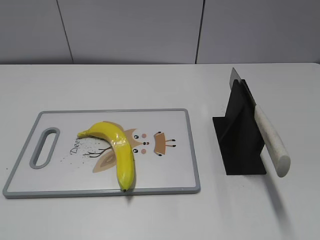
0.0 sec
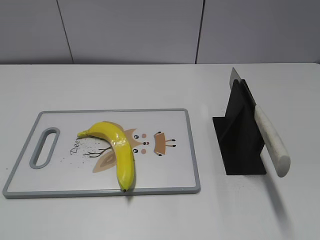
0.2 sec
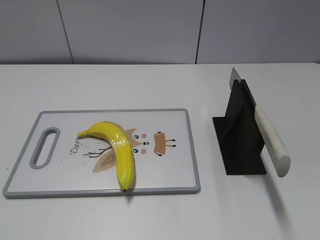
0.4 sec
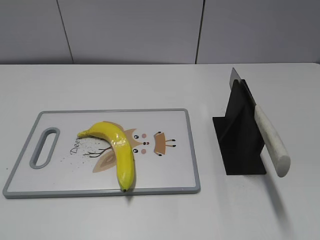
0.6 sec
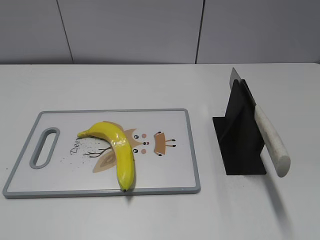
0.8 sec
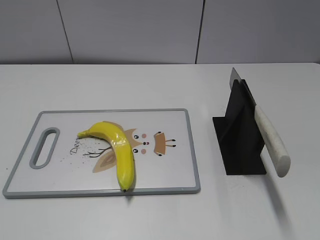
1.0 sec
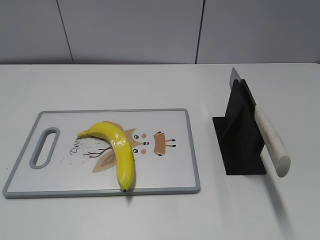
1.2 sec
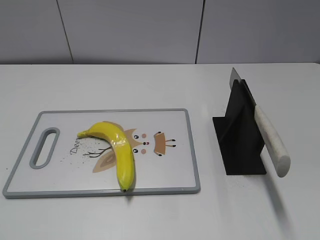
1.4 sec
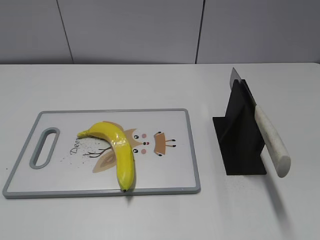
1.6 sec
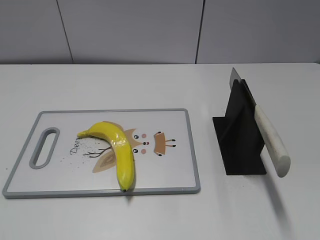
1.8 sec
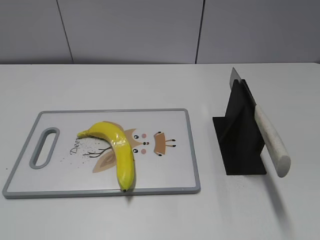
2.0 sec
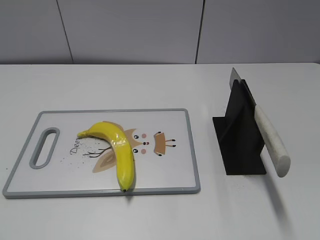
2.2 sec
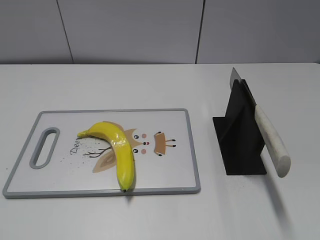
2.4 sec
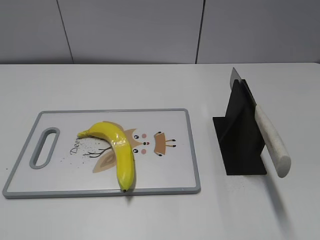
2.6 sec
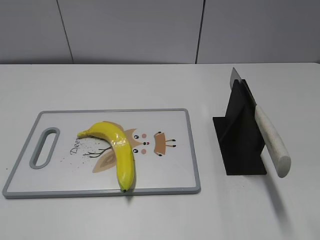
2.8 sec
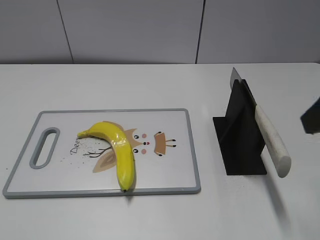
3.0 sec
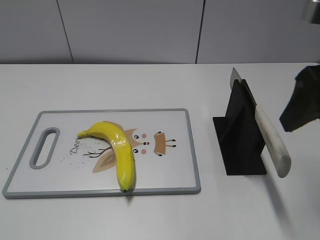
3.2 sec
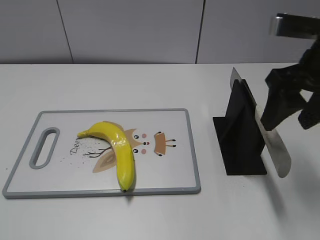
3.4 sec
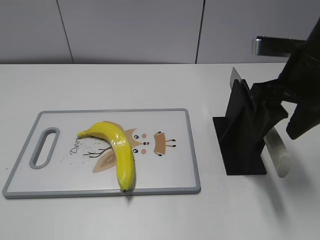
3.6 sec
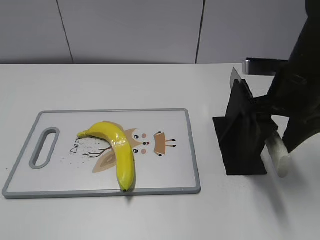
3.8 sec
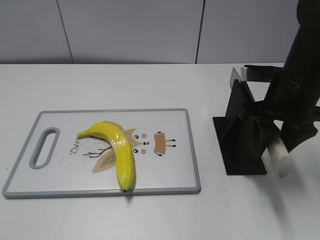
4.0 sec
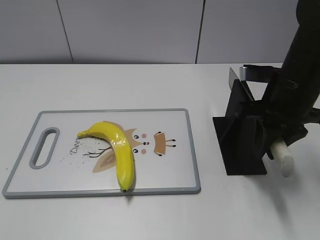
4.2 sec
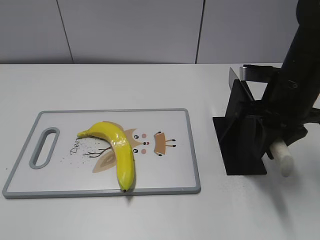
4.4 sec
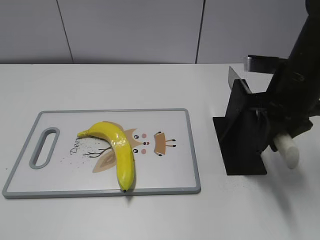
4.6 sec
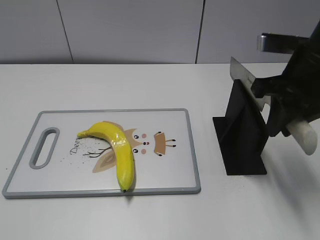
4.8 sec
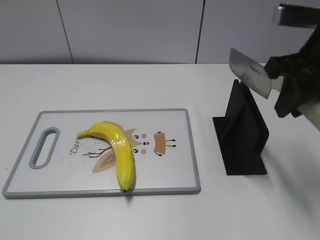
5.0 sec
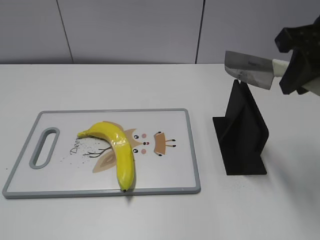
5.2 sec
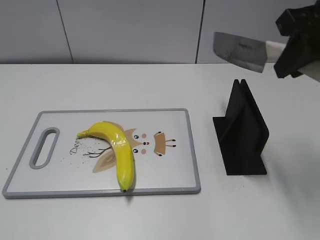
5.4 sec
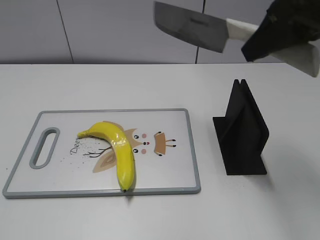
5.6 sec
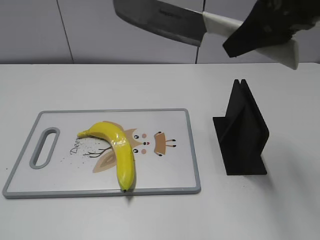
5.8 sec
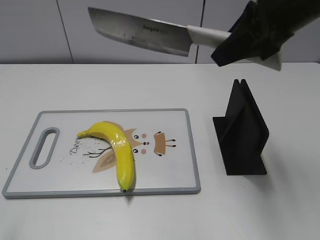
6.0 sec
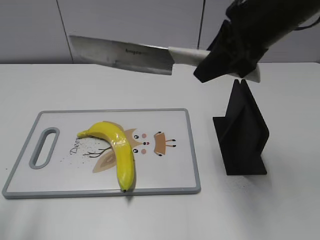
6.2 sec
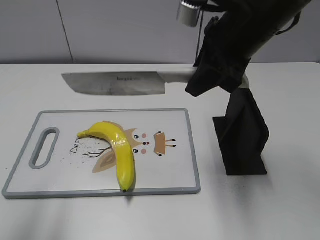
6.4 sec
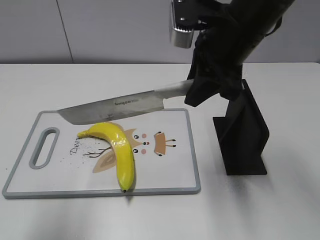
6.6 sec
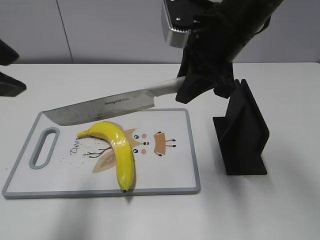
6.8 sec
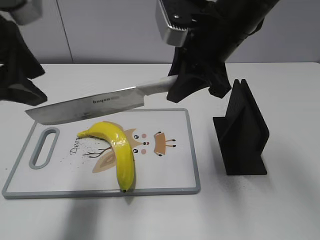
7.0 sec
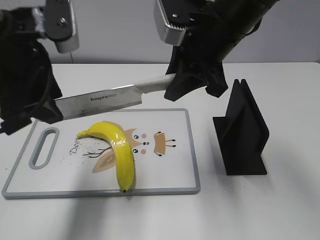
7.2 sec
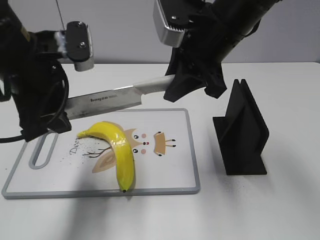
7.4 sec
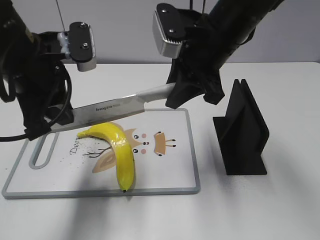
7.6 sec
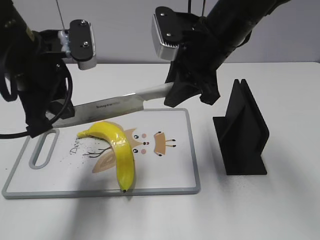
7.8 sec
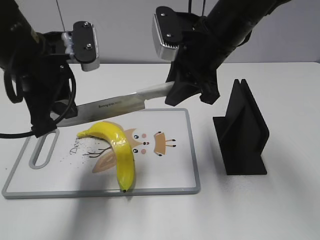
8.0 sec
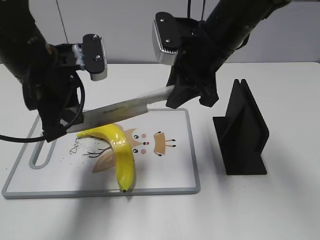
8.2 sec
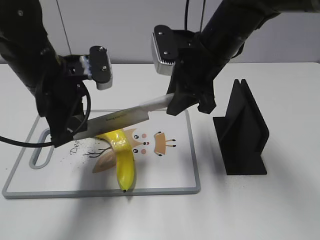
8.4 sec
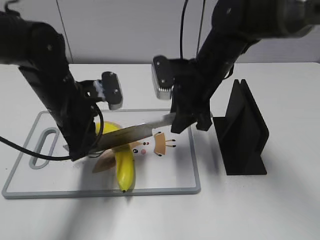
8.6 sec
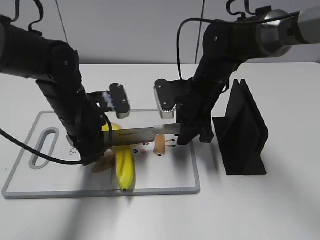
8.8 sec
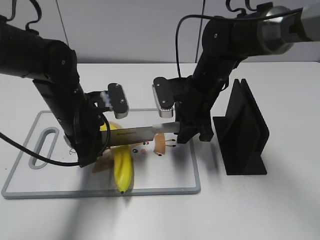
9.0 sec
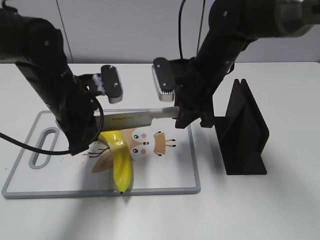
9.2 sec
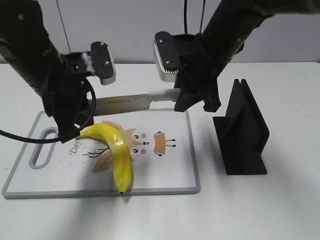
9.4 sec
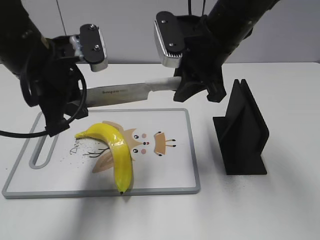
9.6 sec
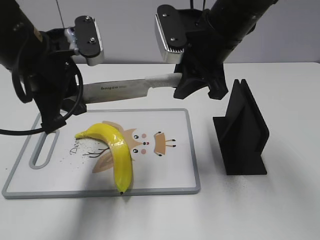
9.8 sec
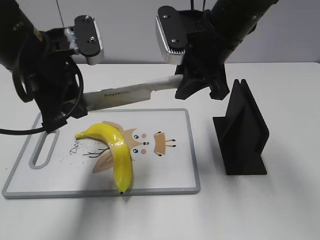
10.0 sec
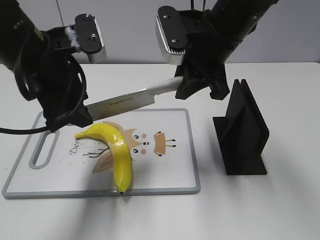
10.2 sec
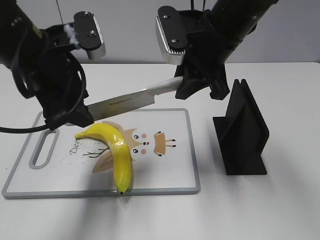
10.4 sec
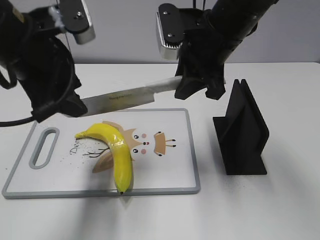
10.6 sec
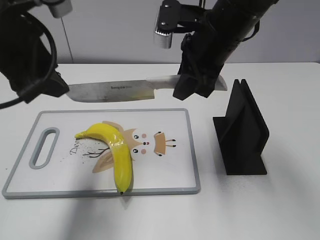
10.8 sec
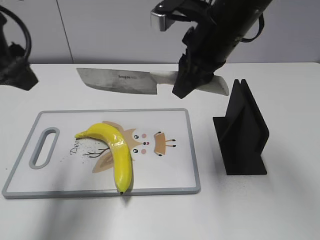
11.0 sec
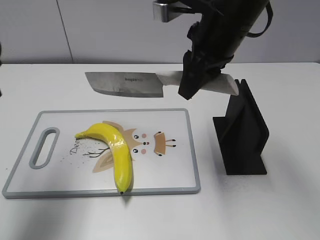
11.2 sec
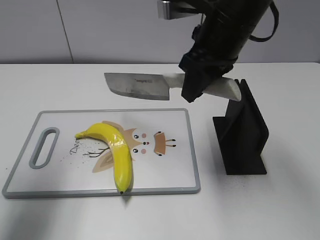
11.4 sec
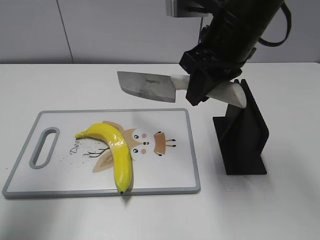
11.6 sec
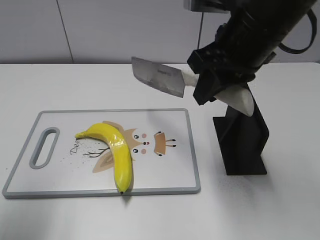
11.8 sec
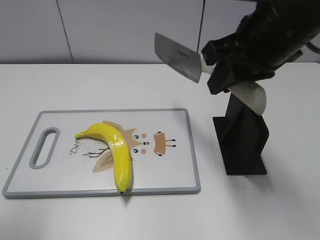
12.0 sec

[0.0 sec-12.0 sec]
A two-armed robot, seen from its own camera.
Task of the whole recording: cut plastic banana.
Step, 0.0 sec to 5.0 sec: Grab the knife handle with your right hand.
Step, 5.2 sec to 9.2 sec: Lift the knife with your right hand.
Step, 11.0 sec to 12.0 sec: Secure the blade with your left hand.
1.6 sec to 3.0 sec: The right gripper moves forward, roughly 20 cm.
3.0 sec to 4.4 sec: The right gripper heads downward and forward, covering roughly 15 cm, and closes up.
4.4 sec to 6.0 sec: The left gripper shifts about 10 cm forward and upward. The right gripper is displaced upward by some 10 cm.
6.0 sec to 7.6 sec: The right gripper shifts about 10 cm to the left and downward; the left gripper heads forward and to the right, covering approximately 25 cm, and closes its fingers.
7.6 sec to 9.0 sec: The two grippers go some 10 cm downward.
9.0 sec to 10.4 sec: The two grippers go approximately 10 cm upward. The left gripper opens.
10.4 sec to 12.0 sec: The right gripper moves backward, about 5 cm, while the left gripper heads to the left and backward, covering approximately 20 cm.

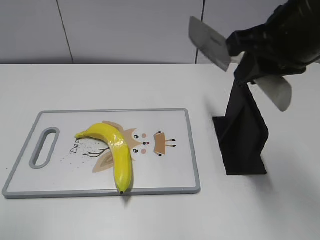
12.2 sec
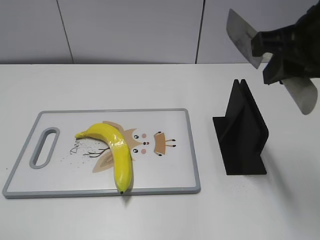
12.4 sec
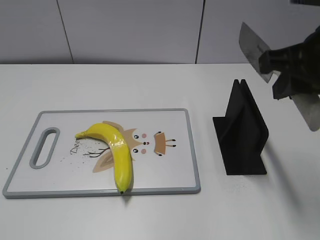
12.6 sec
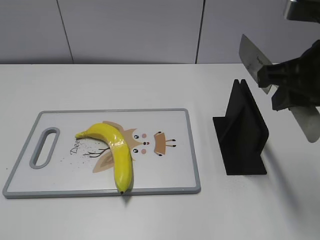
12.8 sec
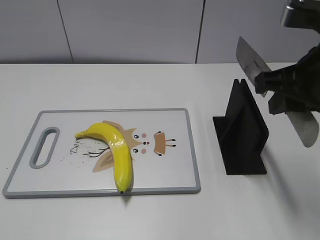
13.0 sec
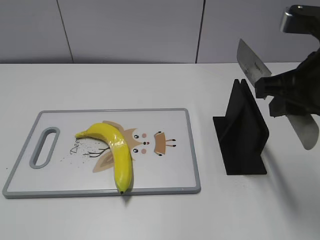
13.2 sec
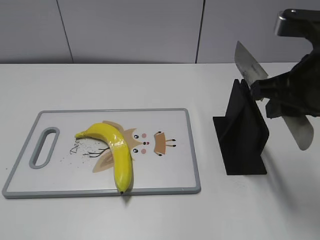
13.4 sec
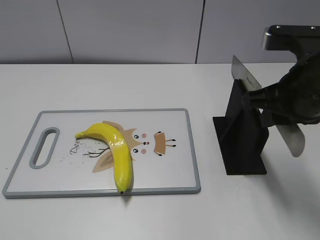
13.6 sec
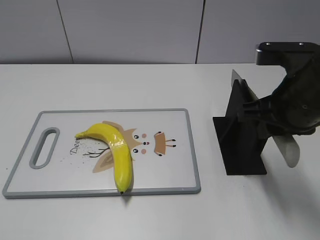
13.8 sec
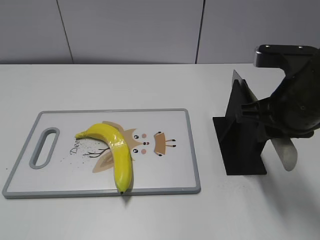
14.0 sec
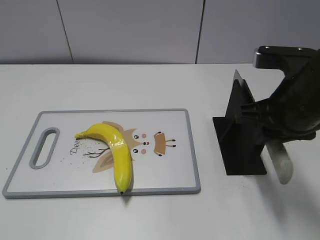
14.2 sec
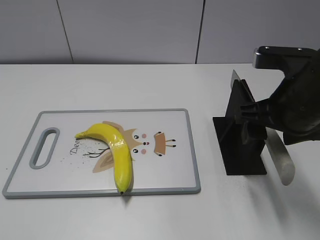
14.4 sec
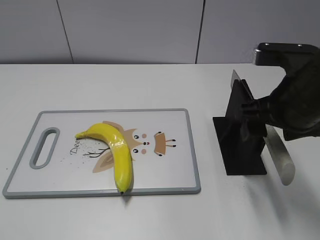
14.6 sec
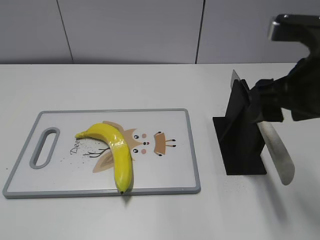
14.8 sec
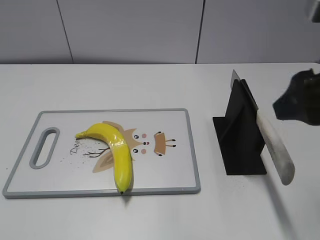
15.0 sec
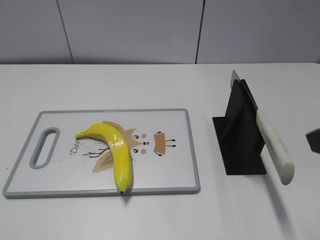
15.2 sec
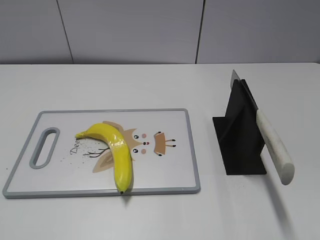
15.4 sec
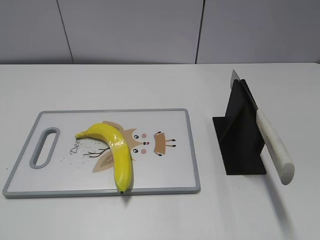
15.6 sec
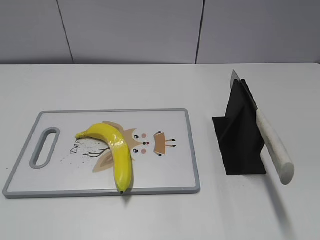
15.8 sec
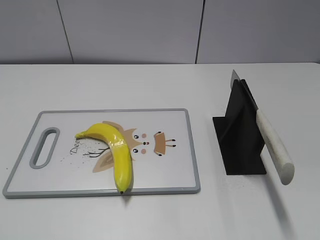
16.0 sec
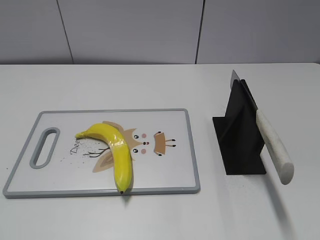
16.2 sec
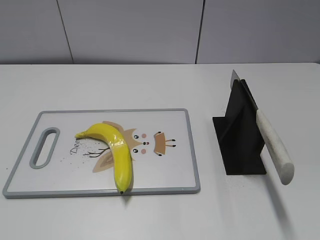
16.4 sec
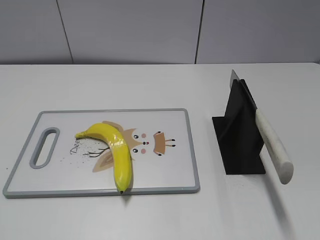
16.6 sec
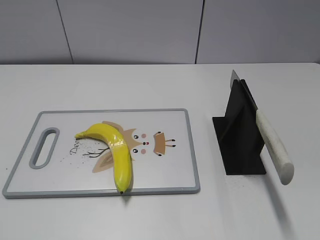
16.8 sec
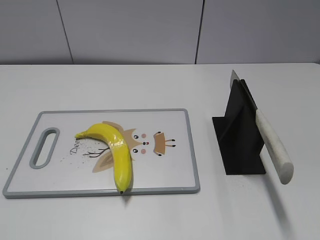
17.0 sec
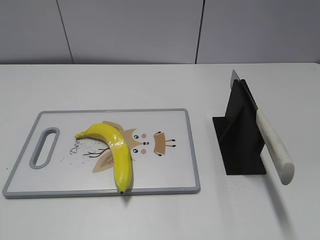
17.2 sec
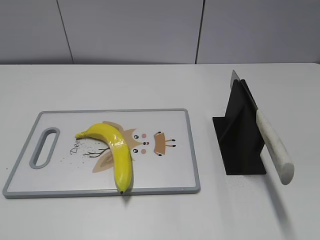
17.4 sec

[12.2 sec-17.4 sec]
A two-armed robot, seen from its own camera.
Task of the whole recording: cut plastic banana.
Step, 12.2 sec to 17.4 sec: Place the knife on the storage rack with your right hand.
12.2 sec to 14.0 sec: The right gripper goes some 10 cm downward, while the left gripper travels backward by about 10 cm.
14.0 sec to 15.6 sec: The right gripper goes approximately 20 cm backward and to the right, and opens up.

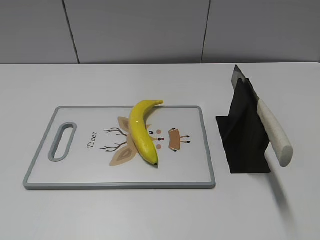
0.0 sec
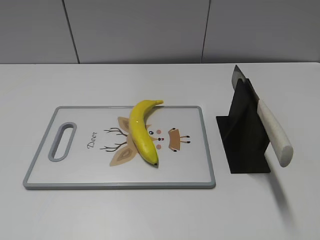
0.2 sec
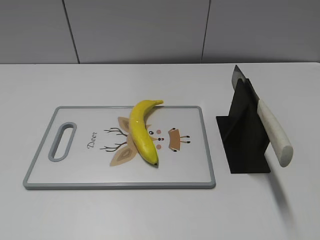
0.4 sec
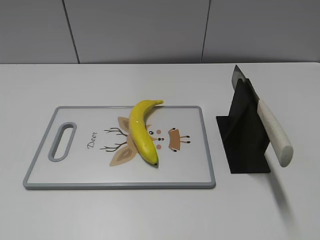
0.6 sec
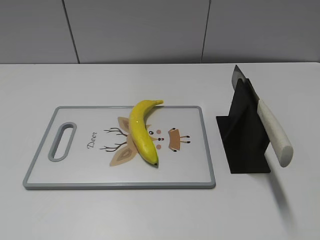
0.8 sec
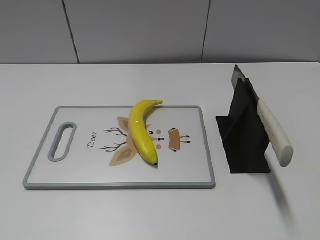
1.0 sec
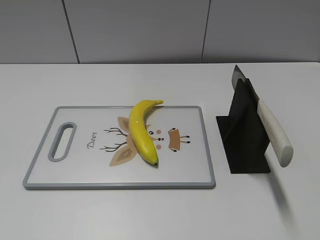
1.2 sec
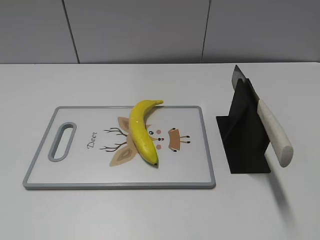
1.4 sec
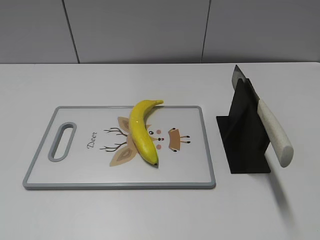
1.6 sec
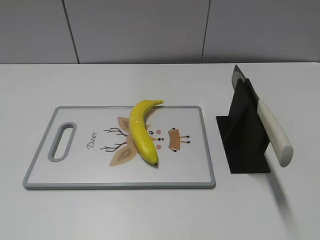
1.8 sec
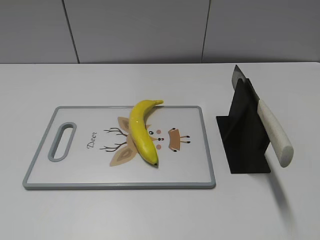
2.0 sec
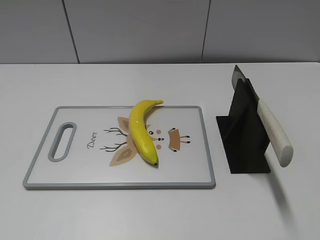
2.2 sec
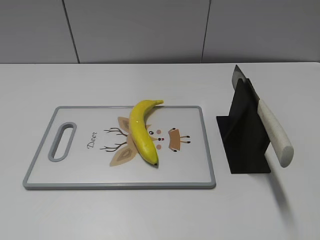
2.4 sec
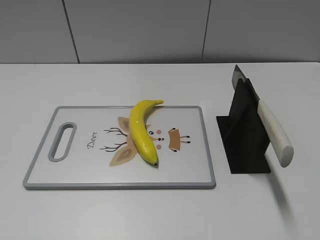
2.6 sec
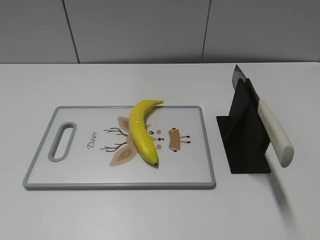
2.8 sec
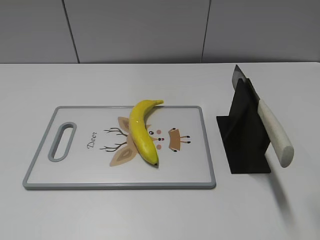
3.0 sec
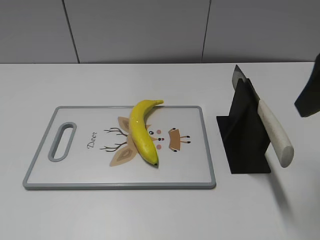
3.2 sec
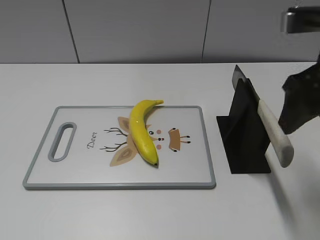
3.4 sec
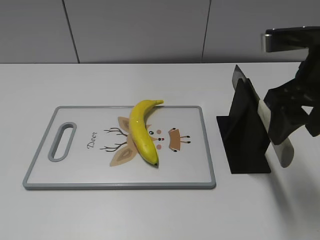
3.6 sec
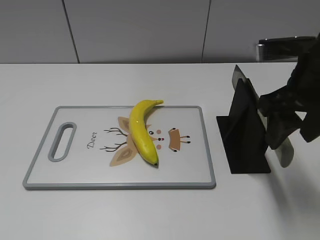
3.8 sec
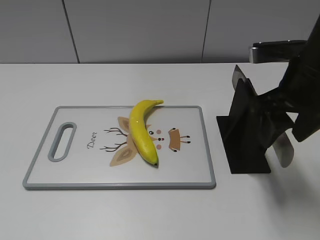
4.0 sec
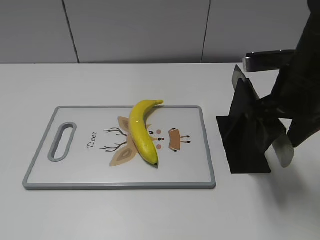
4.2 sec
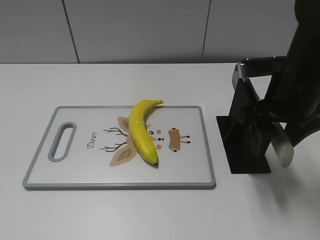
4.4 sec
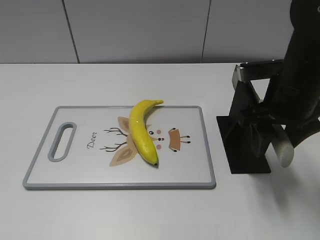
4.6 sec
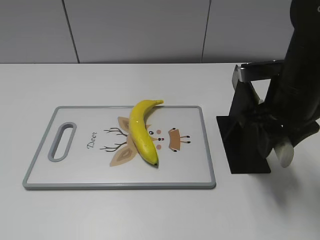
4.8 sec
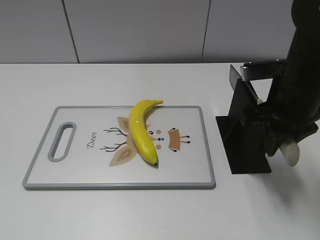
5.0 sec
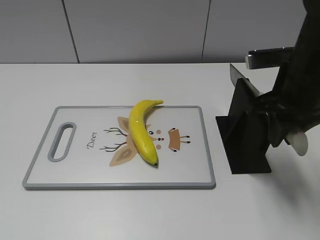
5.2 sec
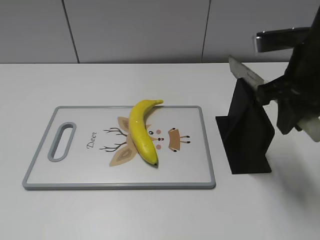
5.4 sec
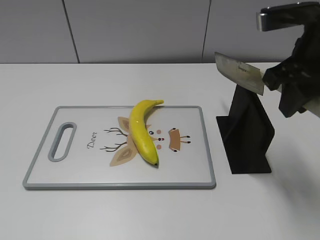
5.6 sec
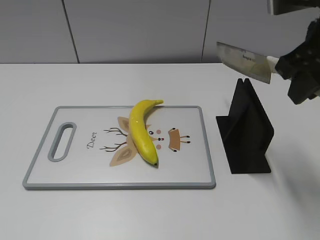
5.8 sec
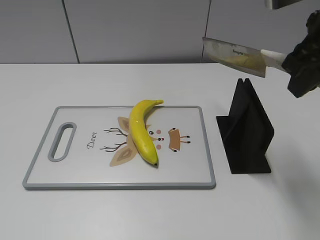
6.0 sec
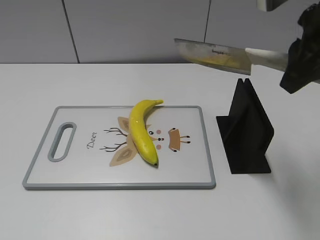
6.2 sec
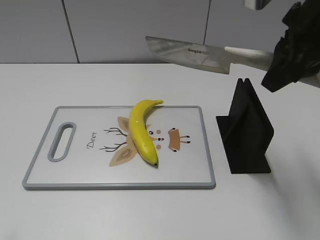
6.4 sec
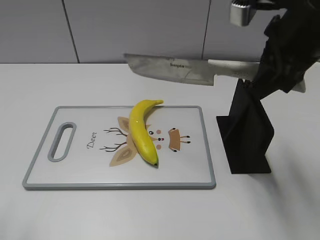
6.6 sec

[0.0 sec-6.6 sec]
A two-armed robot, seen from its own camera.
Task of the whole recording: cut plastic banana.
Step, 0.0 sec to 6.0 sec: Grab the knife handle with your right hand.
1.6 sec to 3.2 sec: The right gripper travels forward by about 25 cm.
3.2 sec to 5.0 sec: The right gripper goes about 15 cm downward and forward, and closes.
5.0 sec to 6.6 sec: The right gripper travels upward by approximately 10 cm; the left gripper travels forward and upward by about 10 cm.
